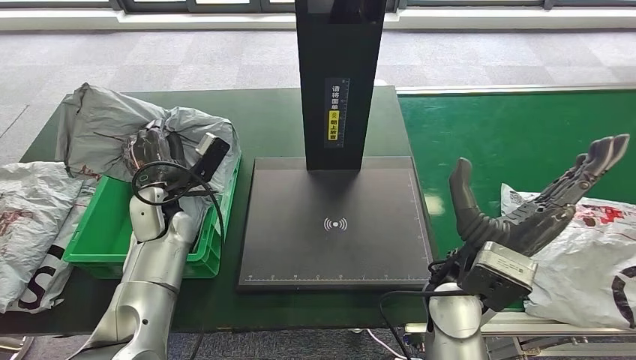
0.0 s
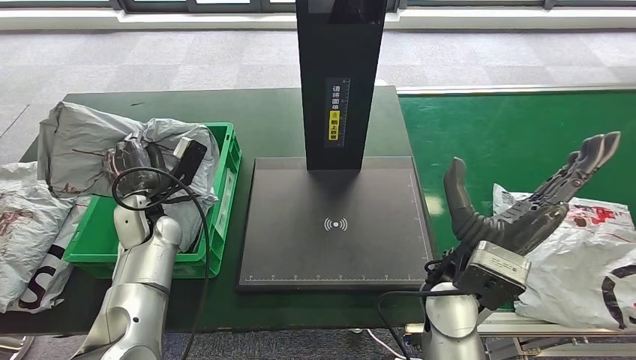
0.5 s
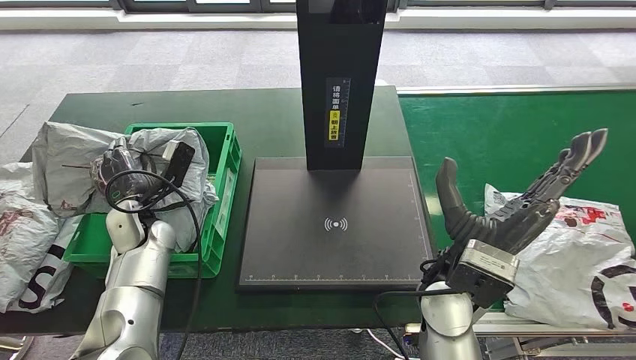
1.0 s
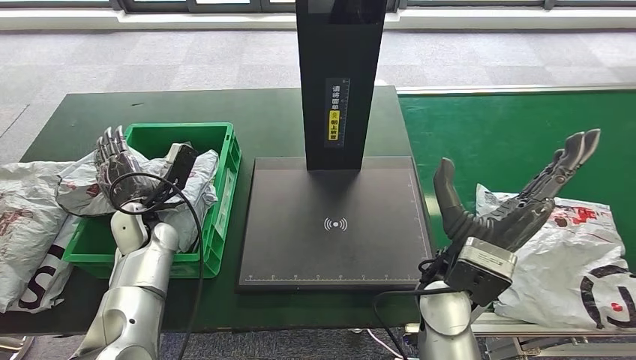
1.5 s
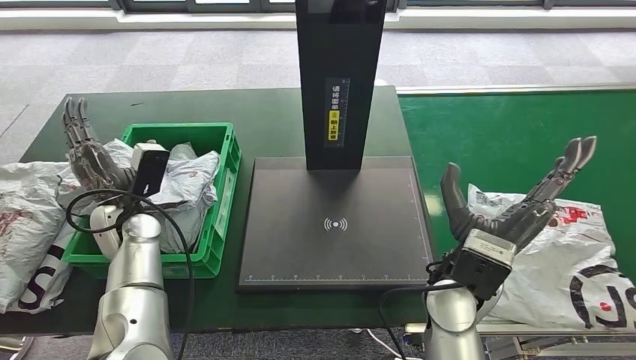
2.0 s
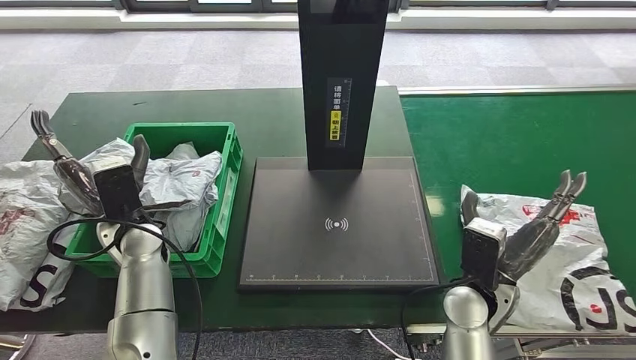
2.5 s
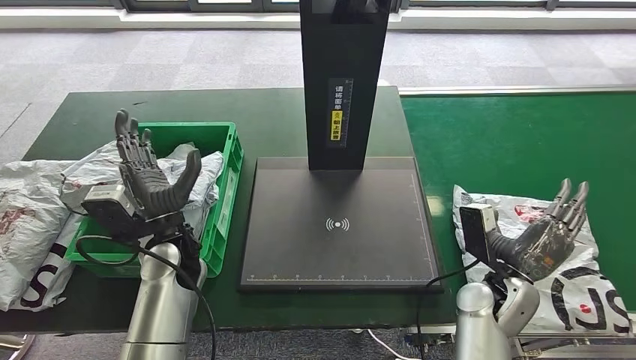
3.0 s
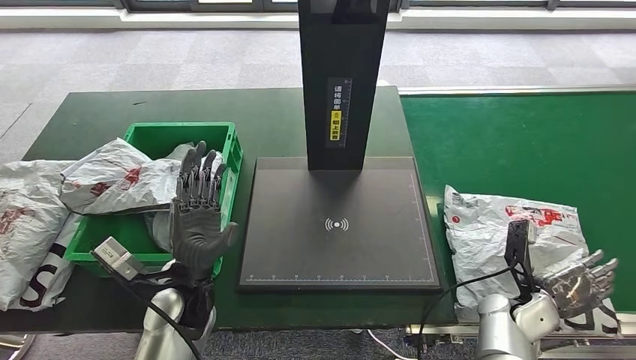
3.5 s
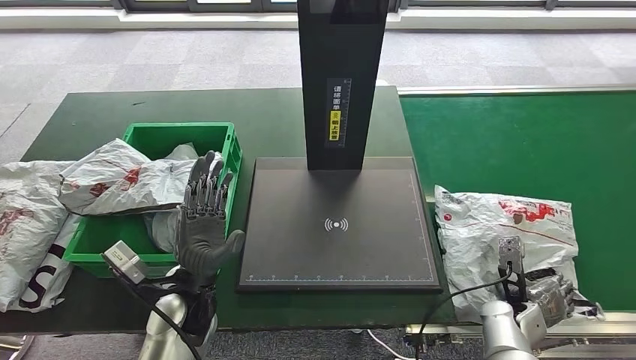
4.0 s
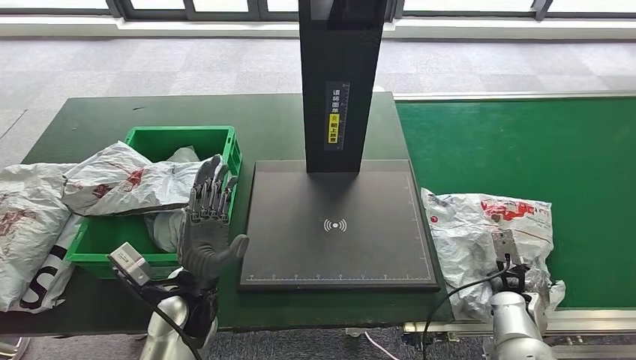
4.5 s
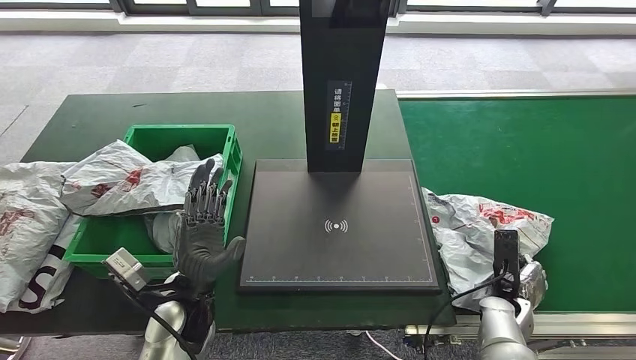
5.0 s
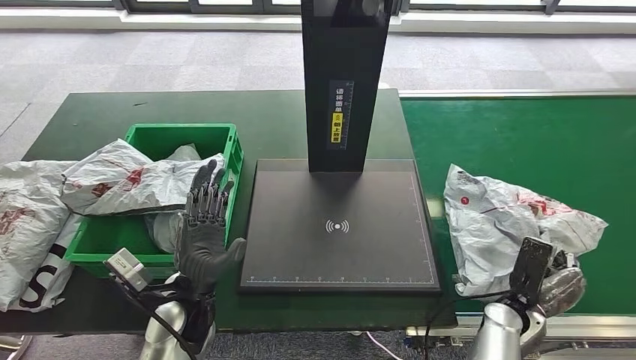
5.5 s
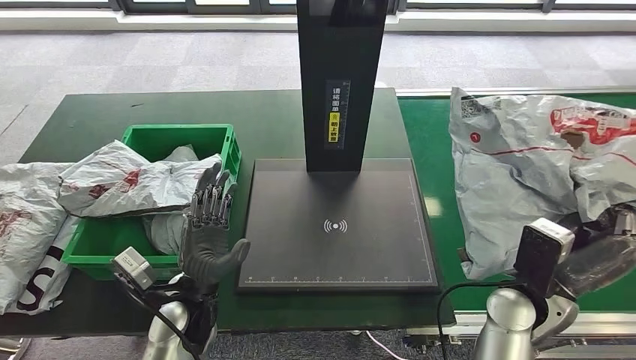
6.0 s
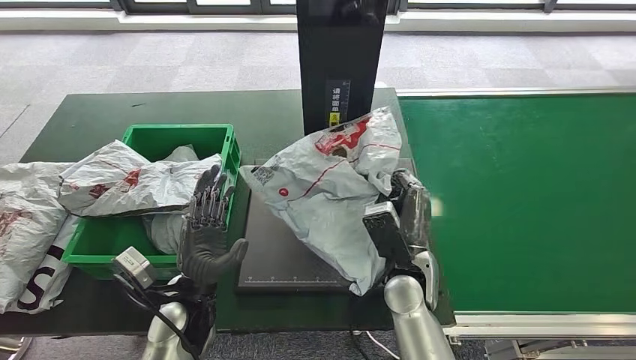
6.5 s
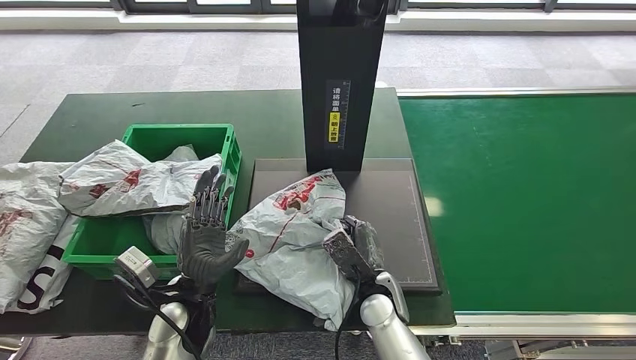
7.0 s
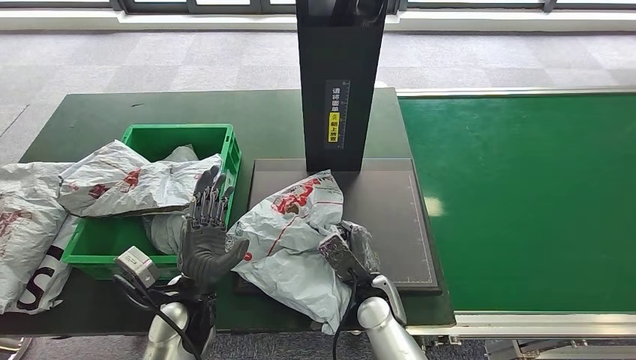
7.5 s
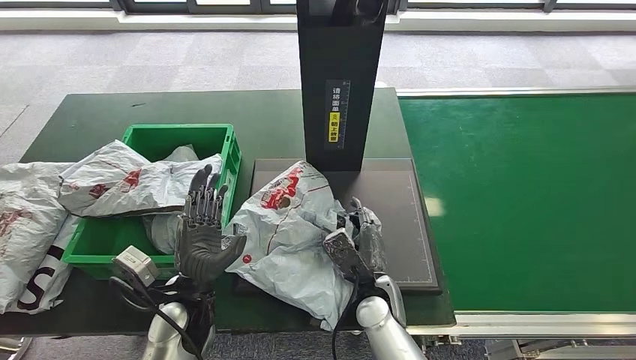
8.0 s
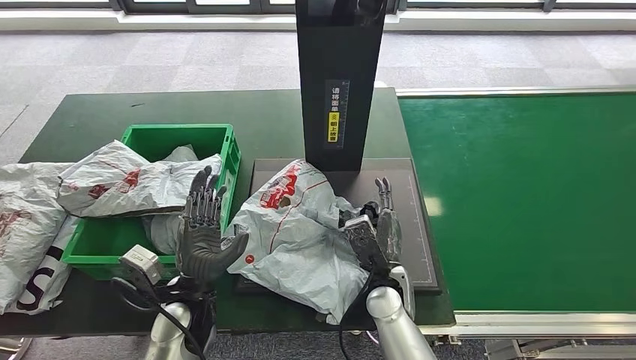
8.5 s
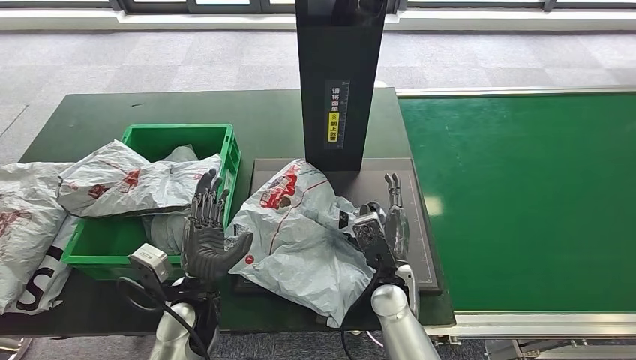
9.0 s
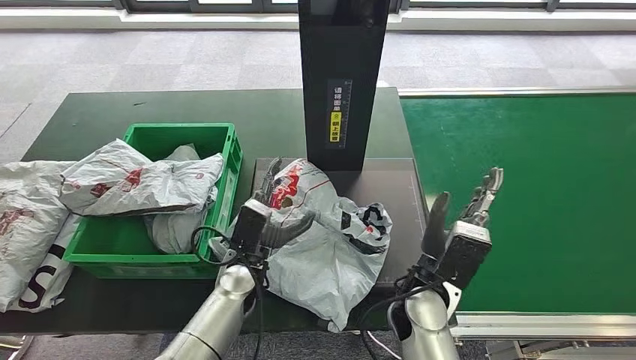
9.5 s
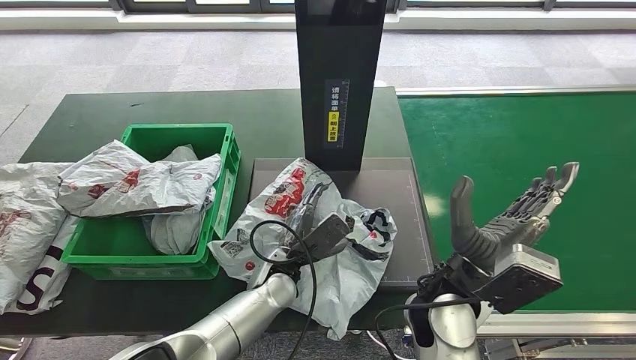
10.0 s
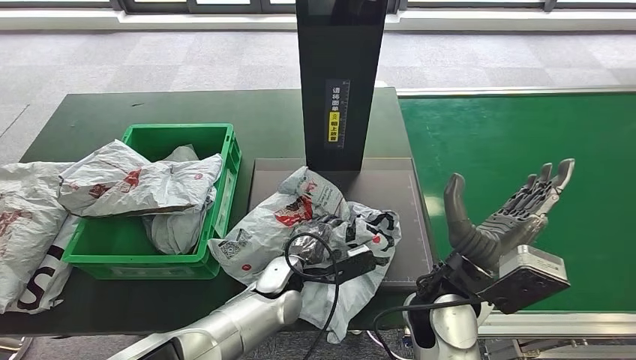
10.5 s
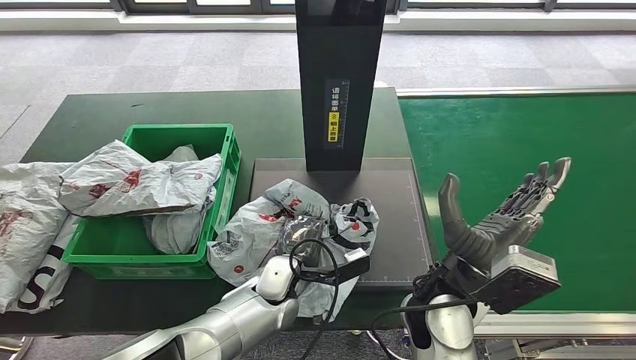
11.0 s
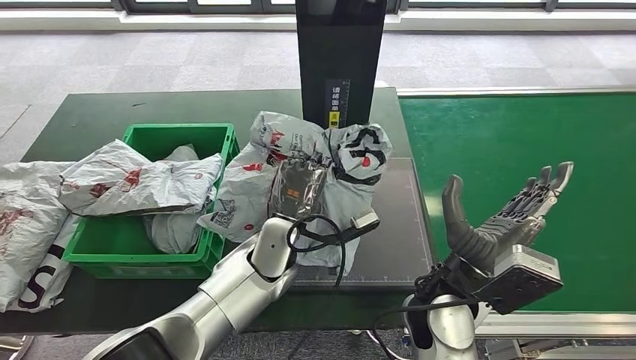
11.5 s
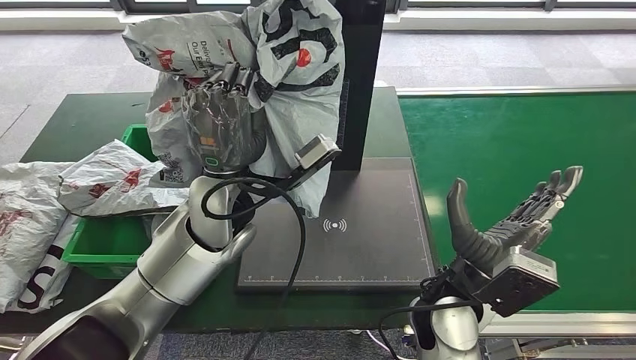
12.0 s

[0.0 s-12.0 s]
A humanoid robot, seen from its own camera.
Step, 0.5 to 2.0 s: Place the parcel into the delivery box.
Step, 3.5 to 5.5 s: Pick up the parcel from the conveyor belt.
Step, 6.0 to 7.5 s: Place the parcel onto the inbound machine.

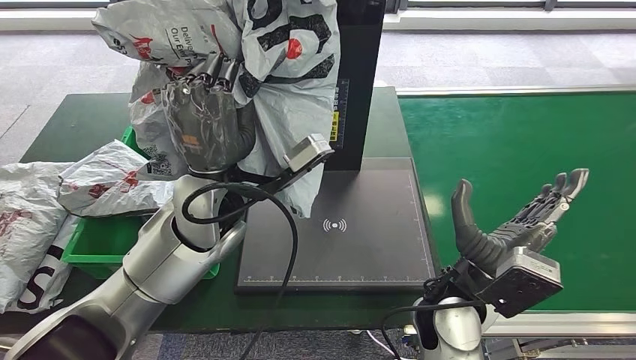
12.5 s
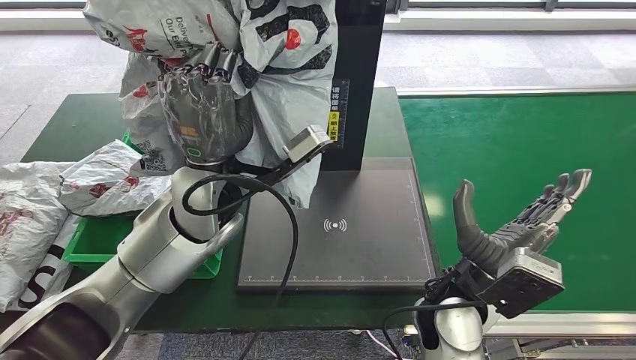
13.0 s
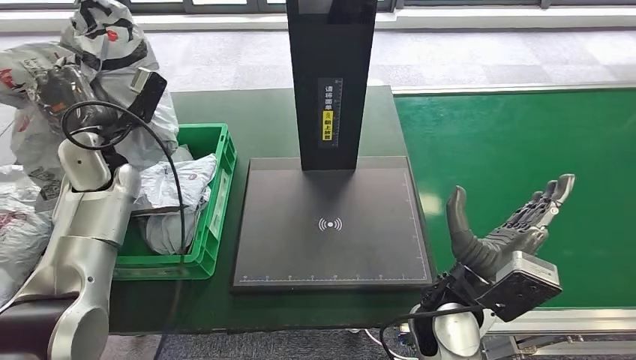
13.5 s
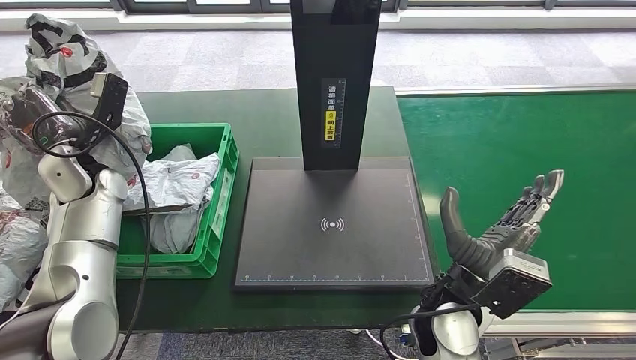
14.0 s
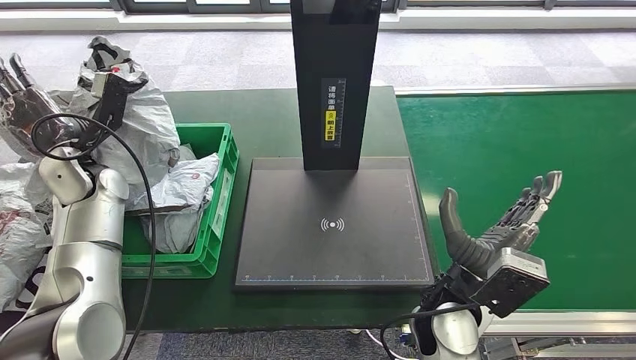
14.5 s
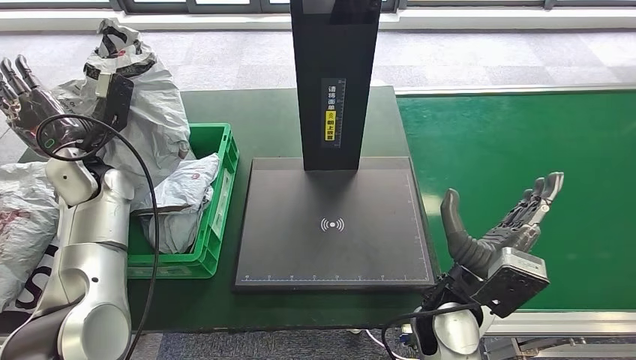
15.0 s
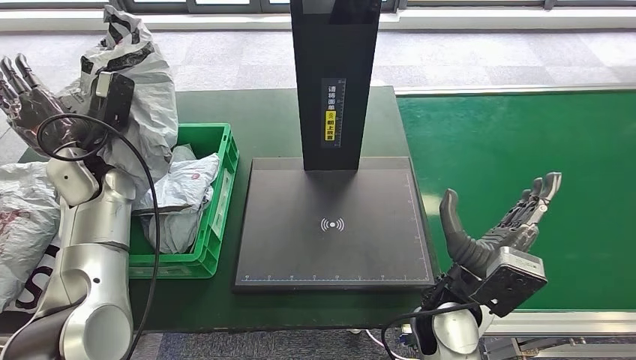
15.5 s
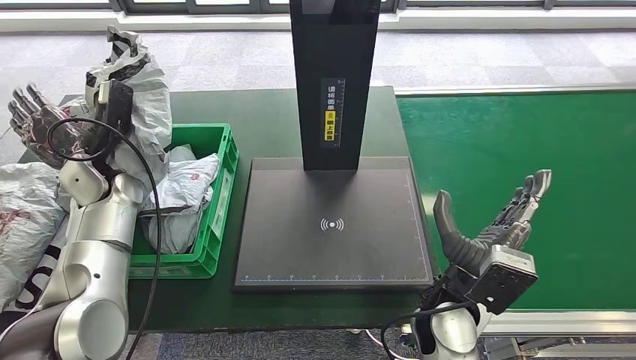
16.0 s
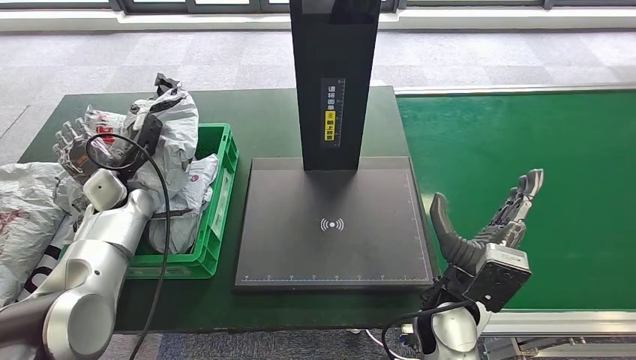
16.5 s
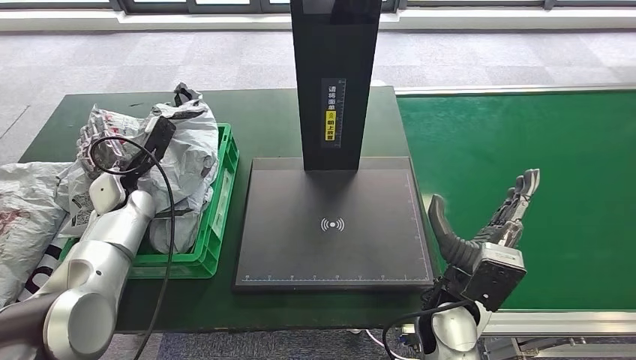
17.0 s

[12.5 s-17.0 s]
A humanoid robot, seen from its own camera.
Step, 13.0 to 17.0 s: Place the parcel into the delivery box.
14.5 to 17.0 s: The left hand shifts approximately 5 cm downward.
